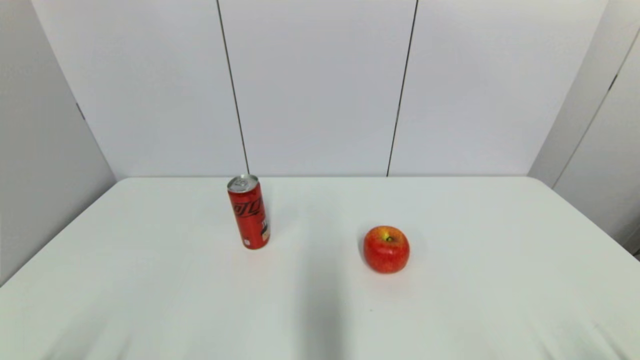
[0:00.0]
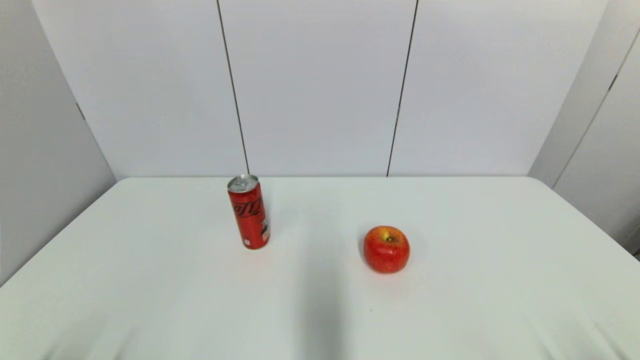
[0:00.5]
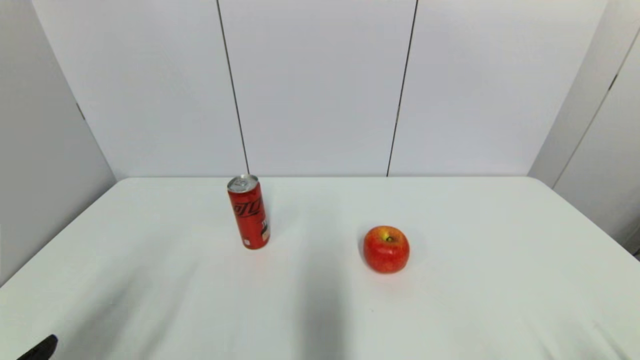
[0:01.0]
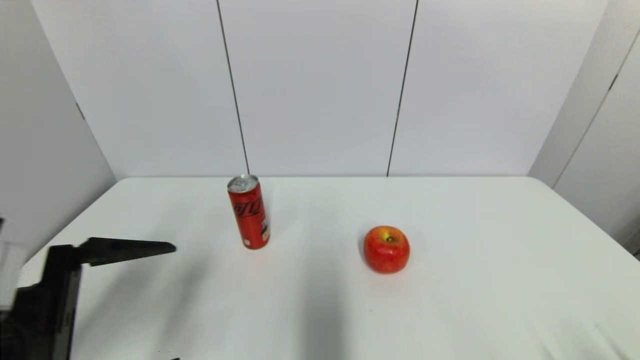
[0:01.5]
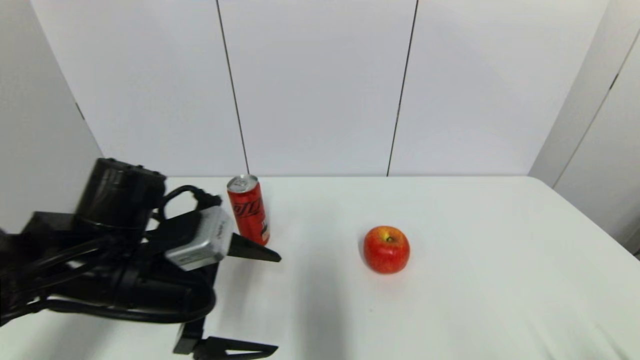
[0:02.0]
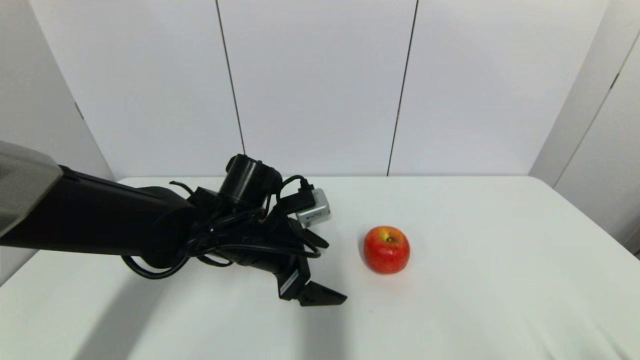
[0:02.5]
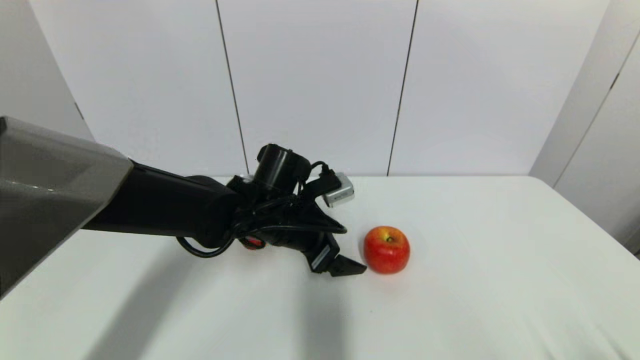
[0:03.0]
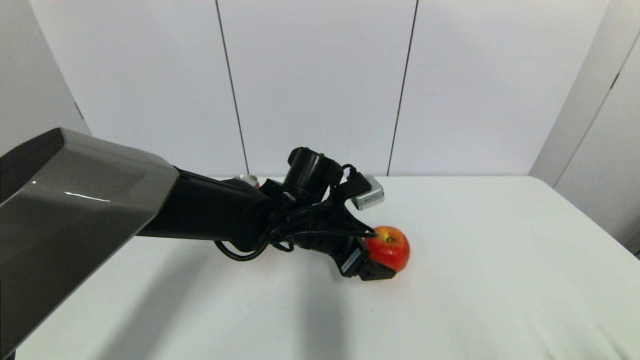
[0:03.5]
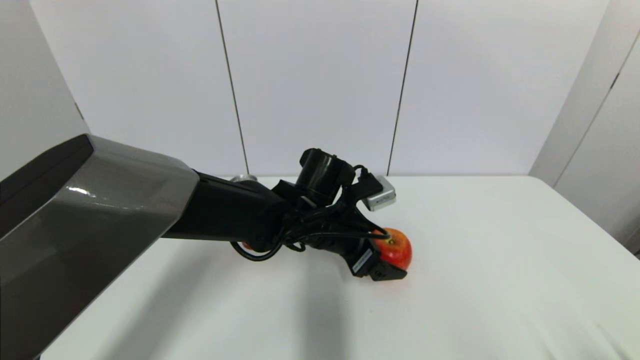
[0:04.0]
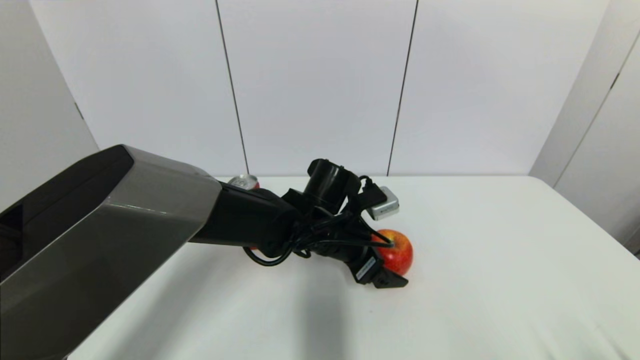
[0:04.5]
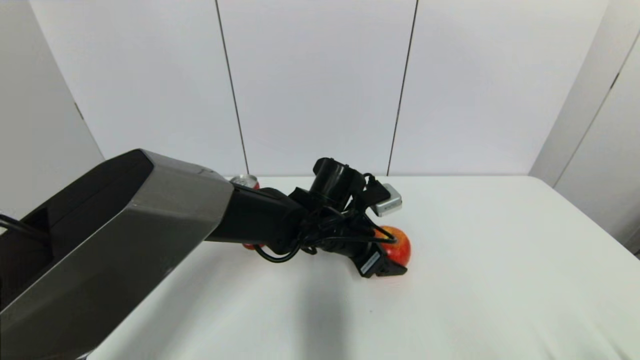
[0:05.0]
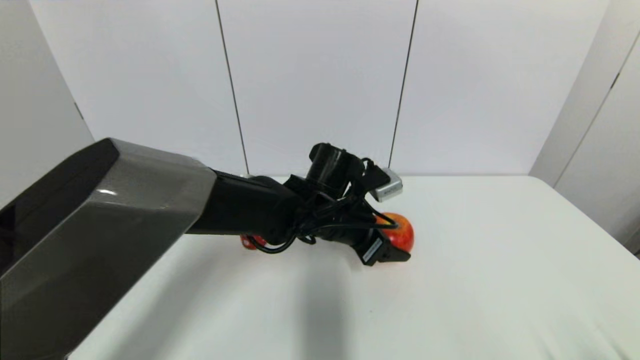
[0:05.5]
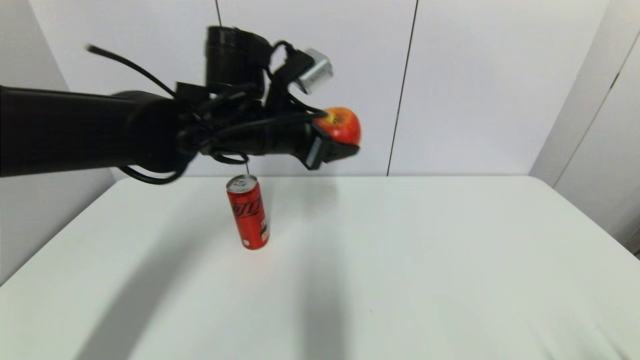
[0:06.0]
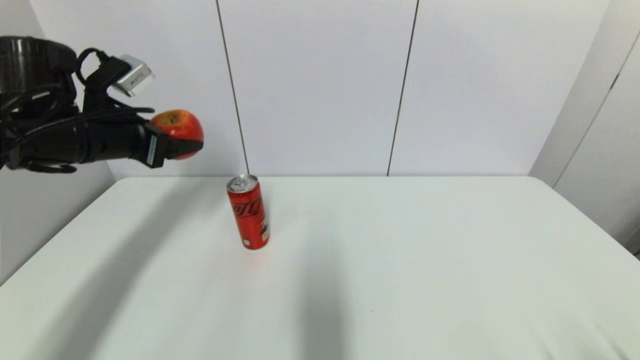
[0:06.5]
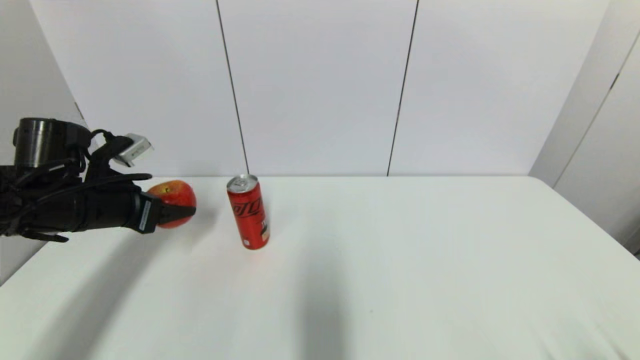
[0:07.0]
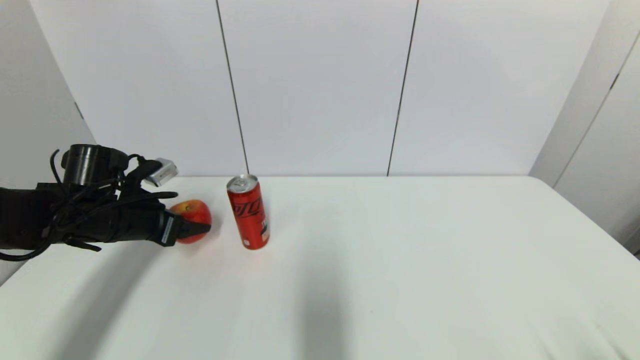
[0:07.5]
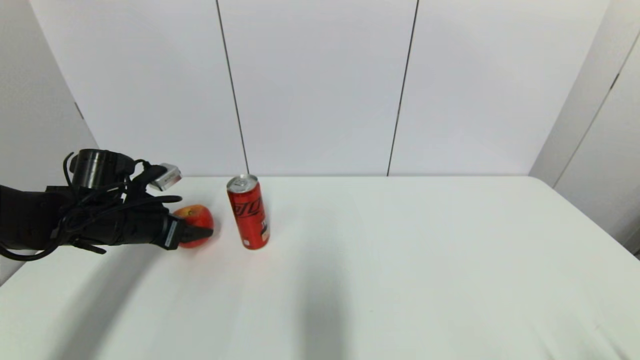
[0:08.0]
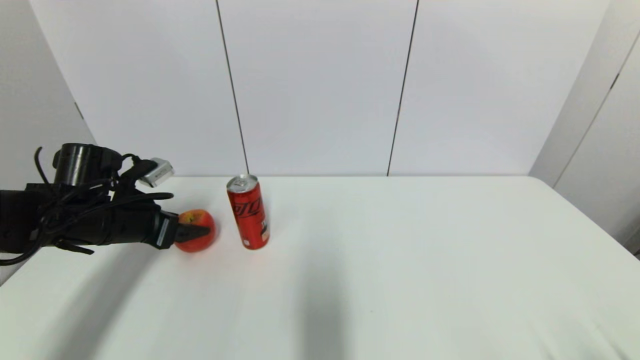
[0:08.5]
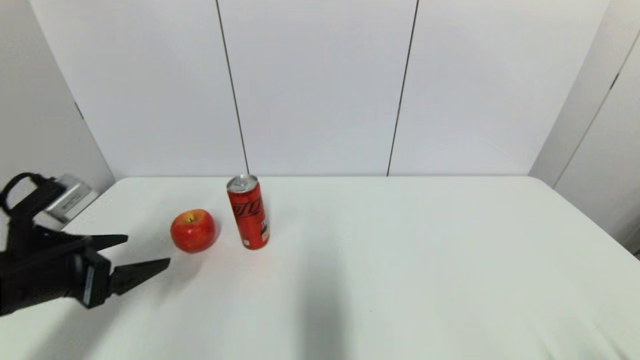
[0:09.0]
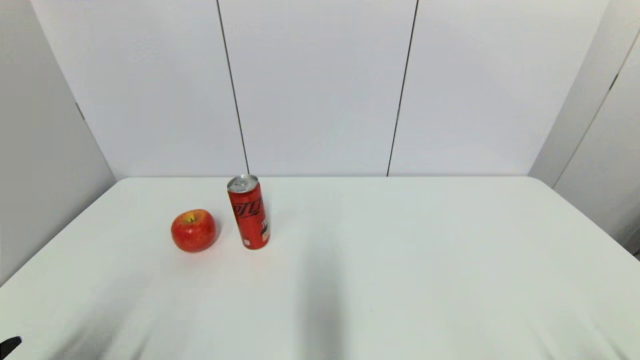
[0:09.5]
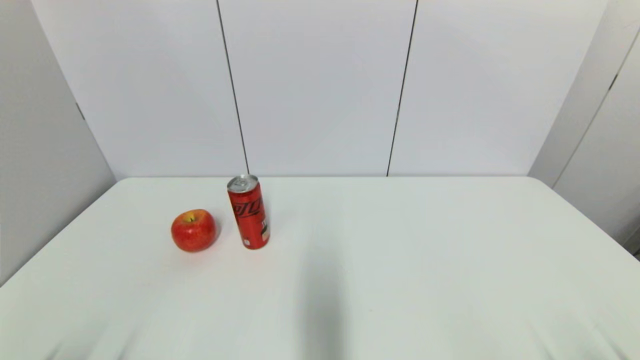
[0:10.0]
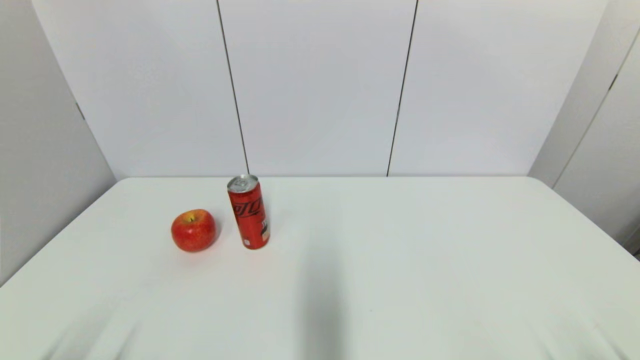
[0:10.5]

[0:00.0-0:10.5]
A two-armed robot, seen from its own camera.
Task of the whole recording: put the apple in the designated position.
Step, 0:01.0 to 0:05.0: Grasp the apple with left gripper.
Step, 0:05.5 to 0:08.5: Place the apple on the table with left gripper.
0:00.0 to 0:02.0: The left gripper is displaced forward, to the right and upward by some 30 cm.
0:02.0 to 0:04.0: The left gripper moves to the right and forward, roughly 20 cm.
0:04.0 to 0:06.5: The left gripper is displaced to the left and upward by about 30 cm, and closes up.
0:06.5 to 0:08.5: The left gripper travels downward by some 10 cm, and opens its fingers.
0:08.5 to 0:10.5: The left gripper shifts some 30 cm backward.
